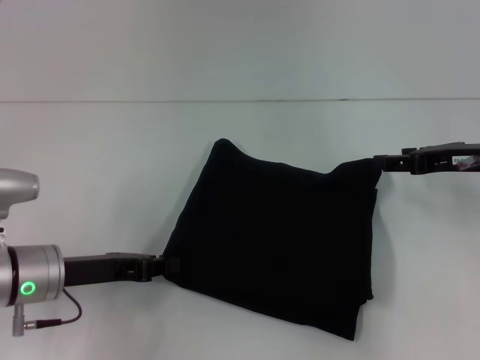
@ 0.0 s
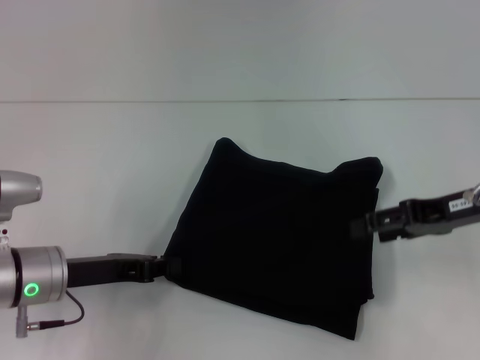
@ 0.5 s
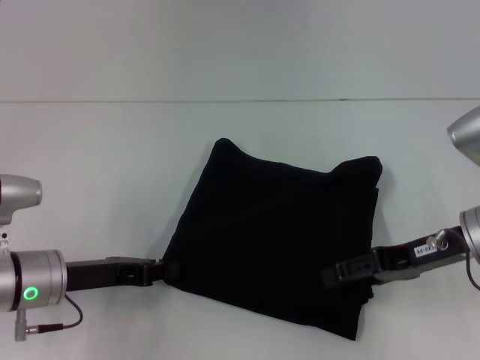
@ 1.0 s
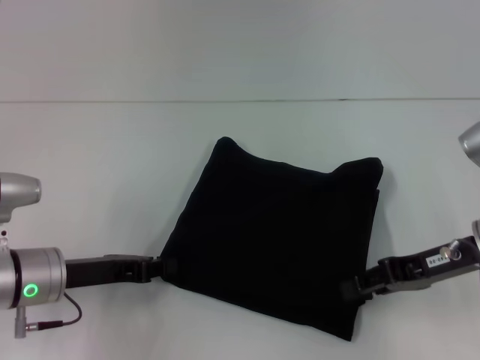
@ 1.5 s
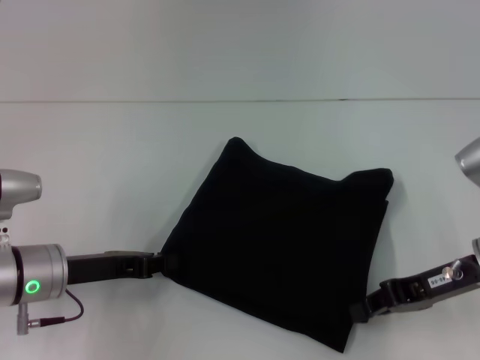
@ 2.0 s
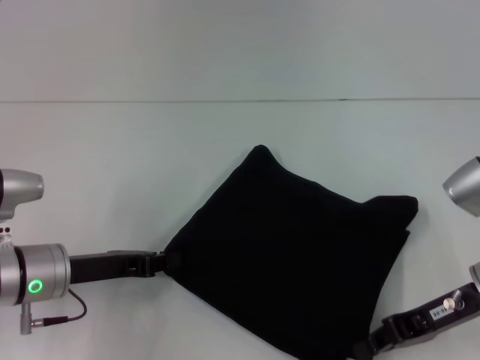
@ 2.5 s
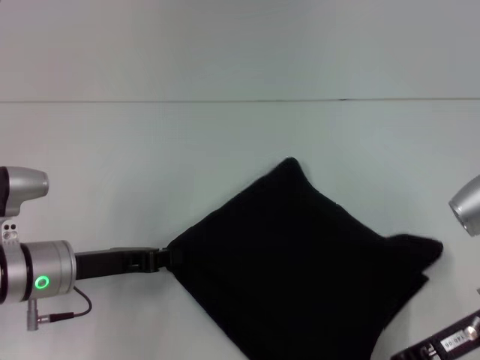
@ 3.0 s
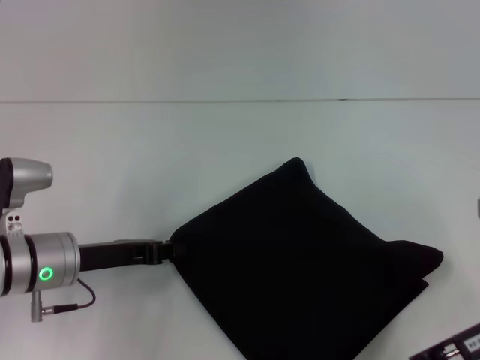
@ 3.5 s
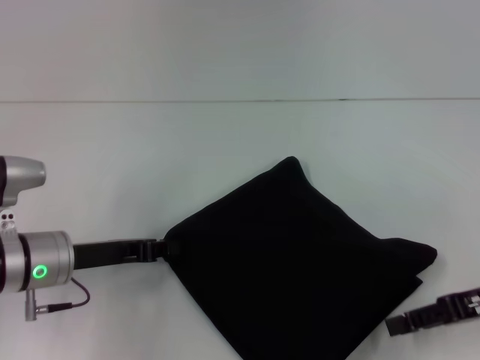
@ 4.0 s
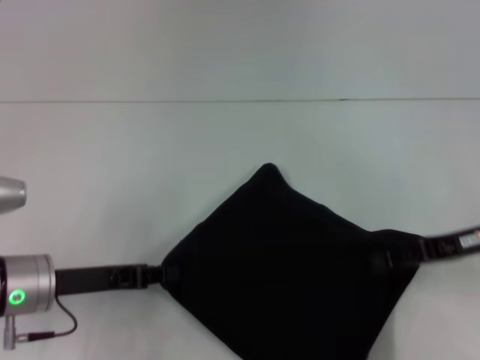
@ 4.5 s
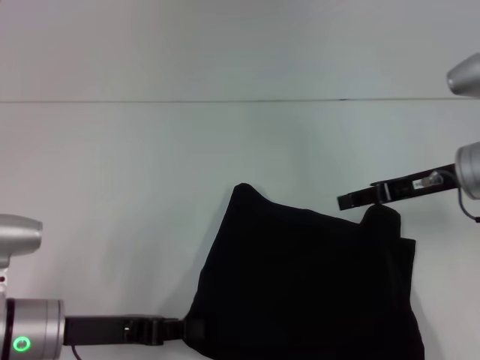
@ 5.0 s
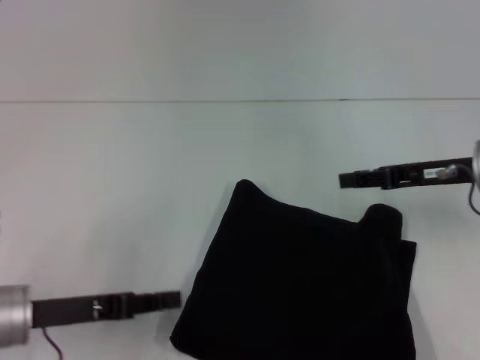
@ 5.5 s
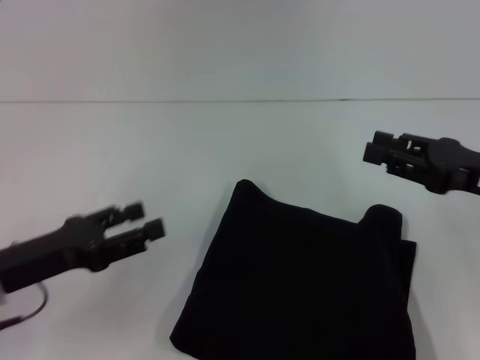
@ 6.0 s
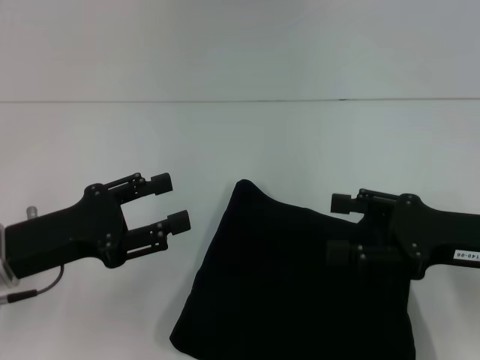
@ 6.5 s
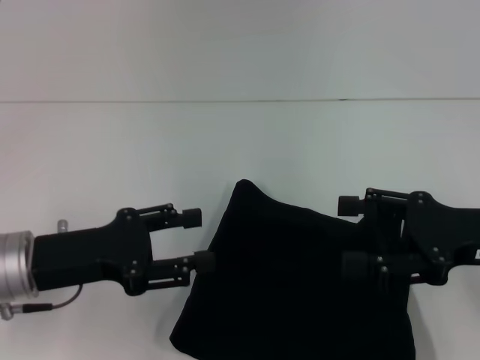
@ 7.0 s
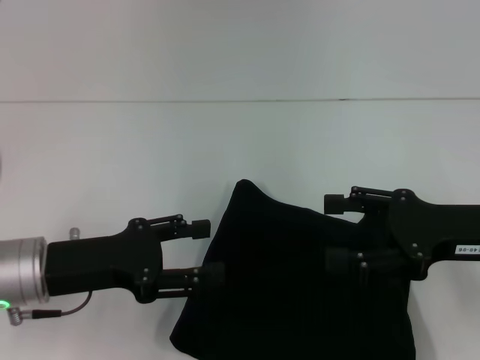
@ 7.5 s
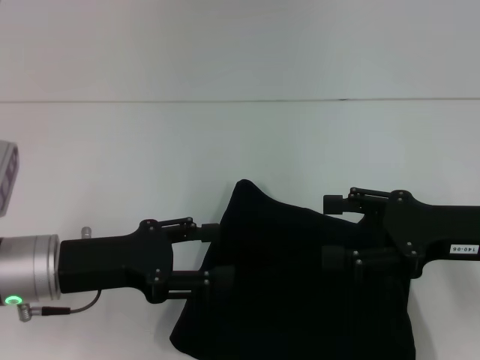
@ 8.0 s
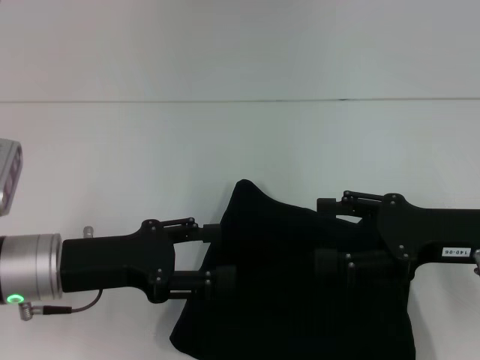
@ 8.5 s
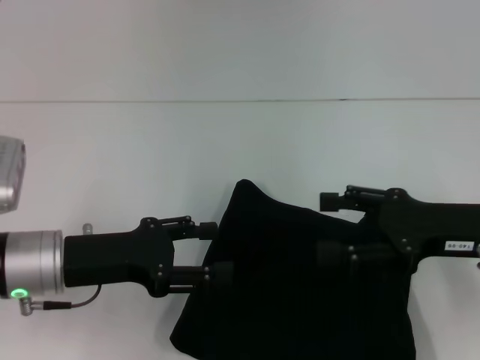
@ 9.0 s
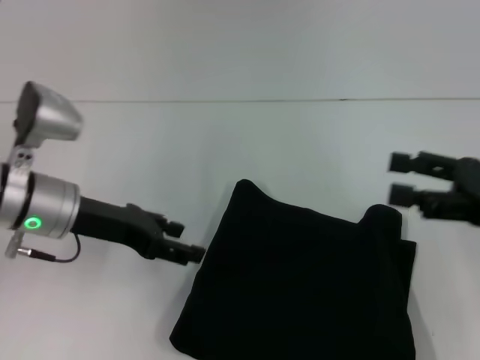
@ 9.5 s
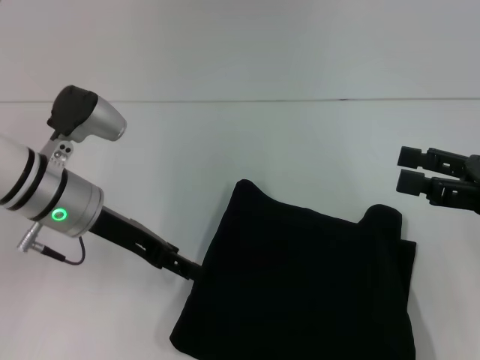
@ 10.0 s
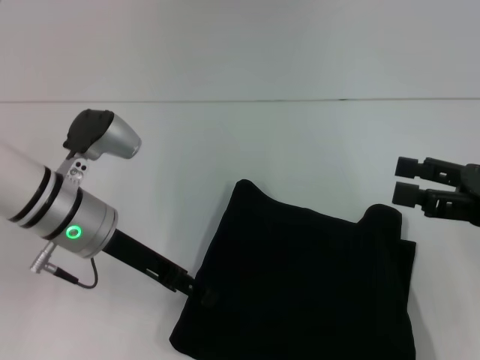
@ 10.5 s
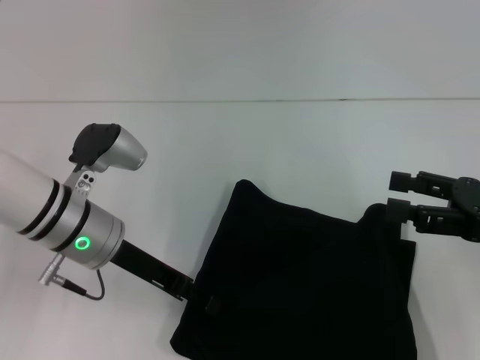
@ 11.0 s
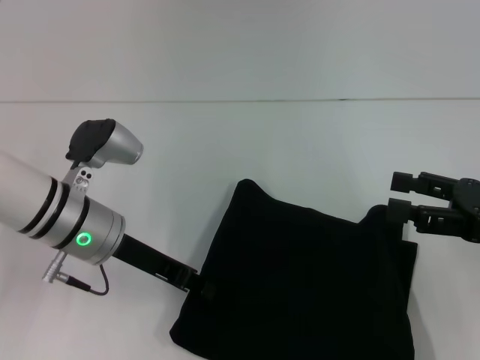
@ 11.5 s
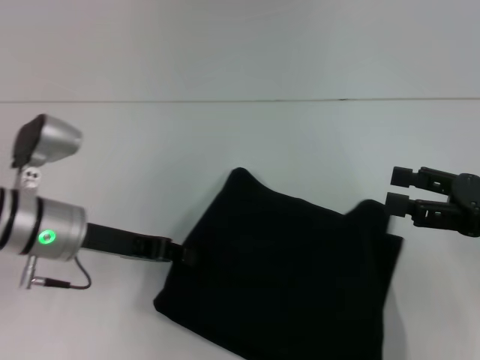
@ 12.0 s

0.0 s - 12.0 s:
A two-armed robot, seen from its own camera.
0.0 s - 2.0 s: The right gripper heads backward, covering some 5 cm, and closes its fingers.
2.0 s - 4.0 s: The right gripper travels to the right by about 5 cm, and opens its fingers.
4.0 s - 6.0 s: The right gripper moves roughly 10 cm forward and comes back, while the left gripper heads backward, covering about 5 cm, and opens.
6.0 s - 8.0 s: The right gripper opens. Meanwhile the left gripper moves to the right, roughly 5 cm.
8.0 s - 10.0 s: The left gripper is displaced forward by some 10 cm. Meanwhile the right gripper goes about 5 cm to the right.
10.0 s - 12.0 s: The left gripper closes up.

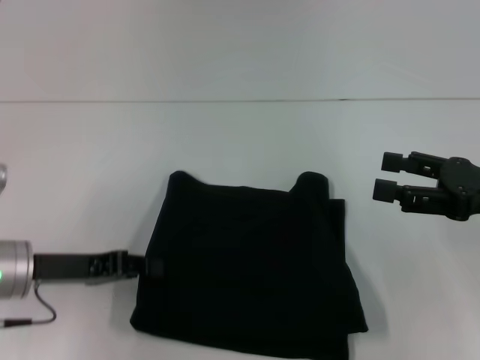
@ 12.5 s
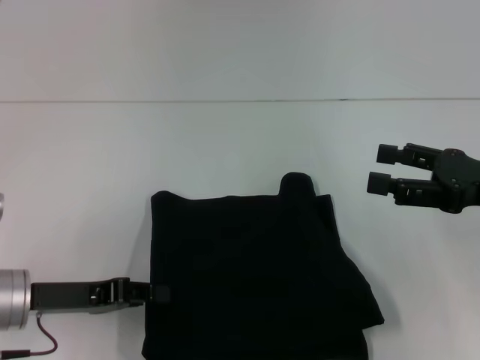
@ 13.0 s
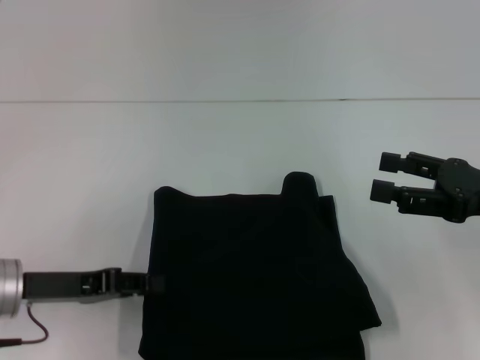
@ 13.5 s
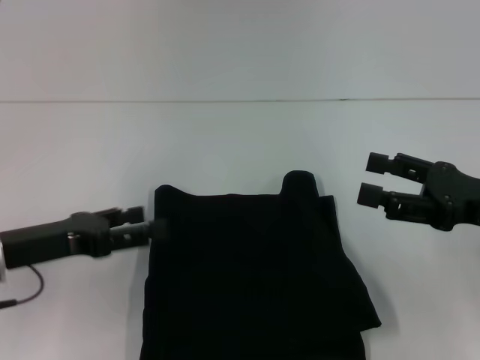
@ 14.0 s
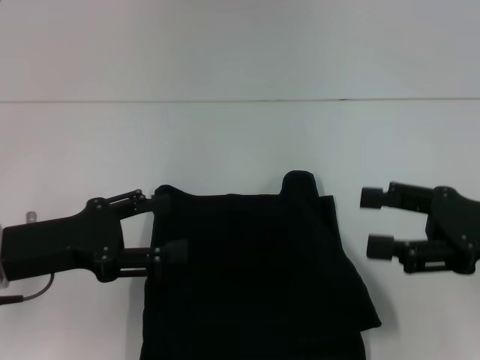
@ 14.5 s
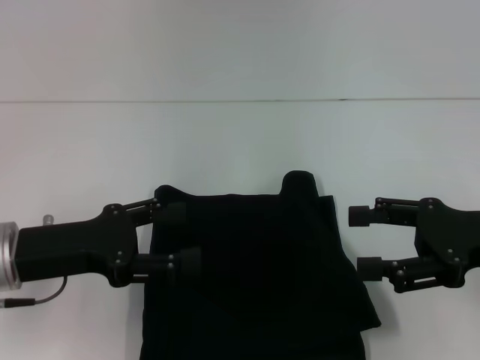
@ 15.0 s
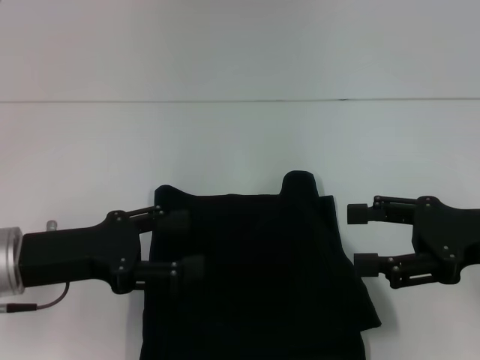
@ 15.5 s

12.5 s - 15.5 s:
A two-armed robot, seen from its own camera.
12.5 s - 14.0 s: The left gripper opens its fingers.

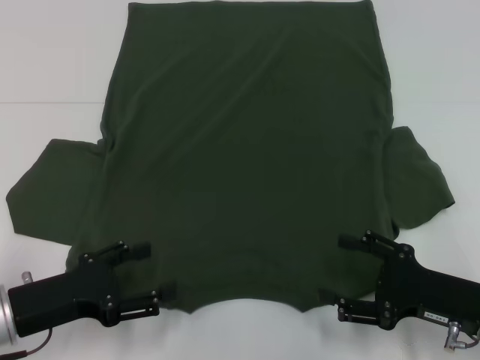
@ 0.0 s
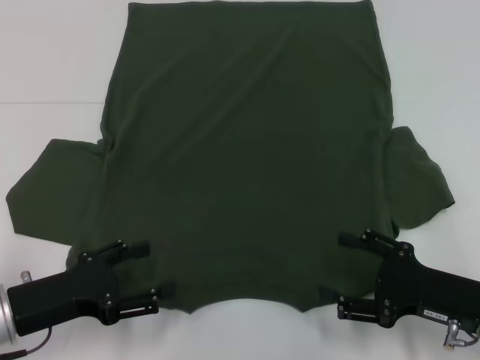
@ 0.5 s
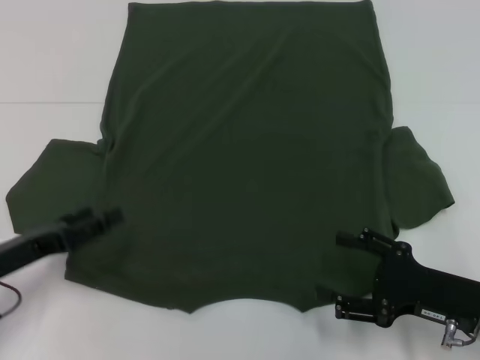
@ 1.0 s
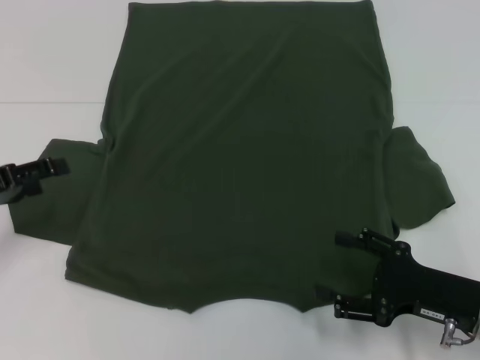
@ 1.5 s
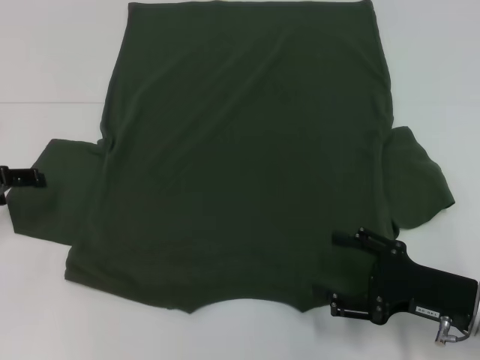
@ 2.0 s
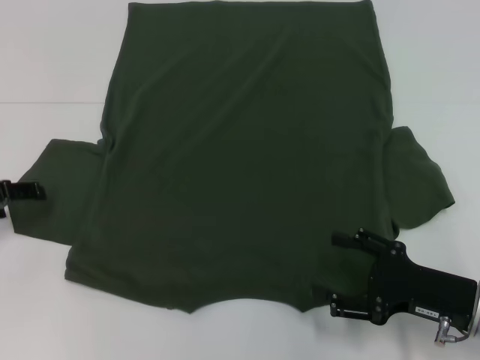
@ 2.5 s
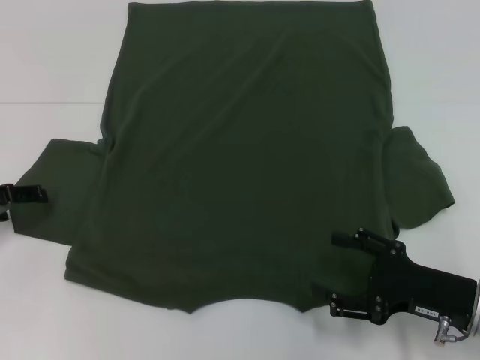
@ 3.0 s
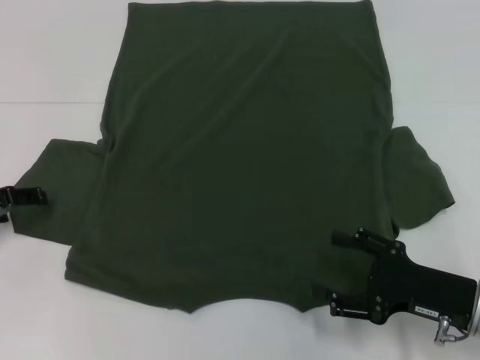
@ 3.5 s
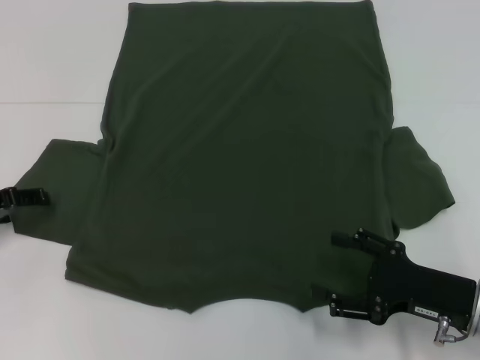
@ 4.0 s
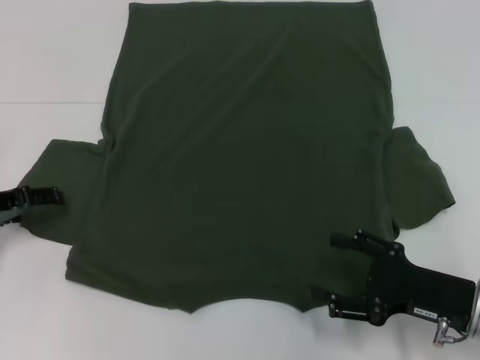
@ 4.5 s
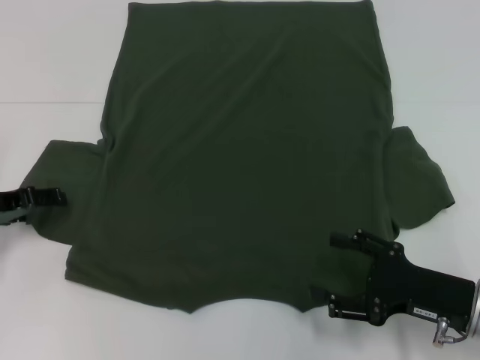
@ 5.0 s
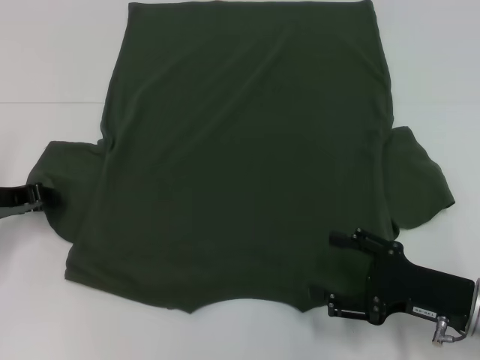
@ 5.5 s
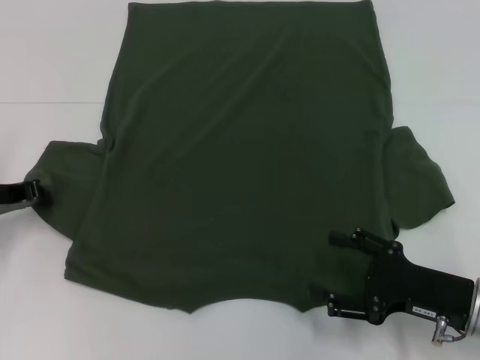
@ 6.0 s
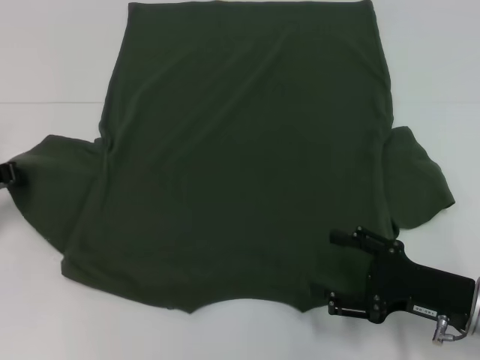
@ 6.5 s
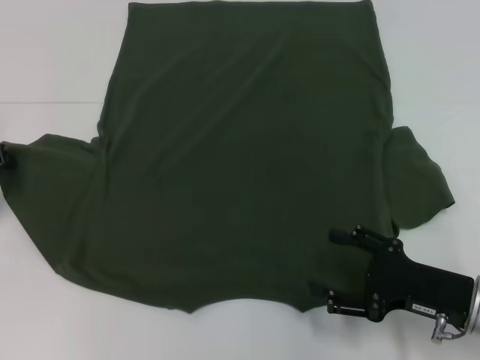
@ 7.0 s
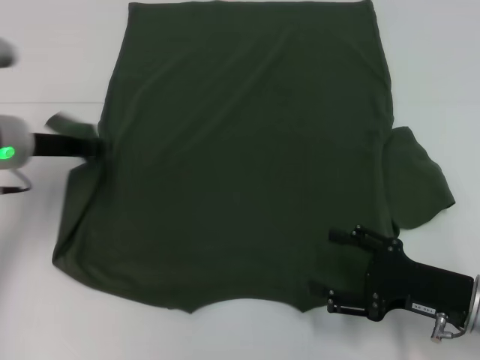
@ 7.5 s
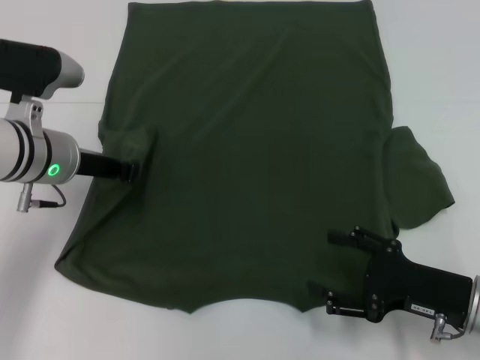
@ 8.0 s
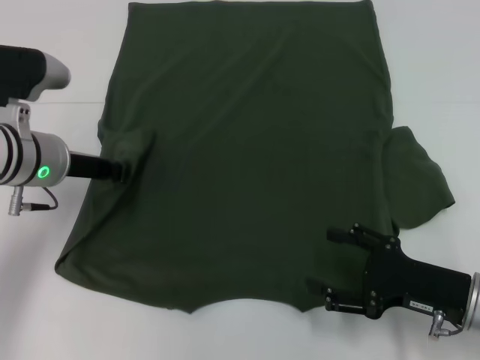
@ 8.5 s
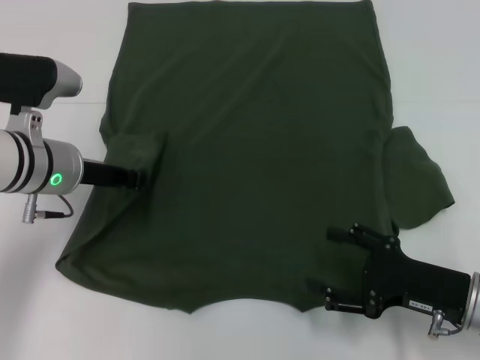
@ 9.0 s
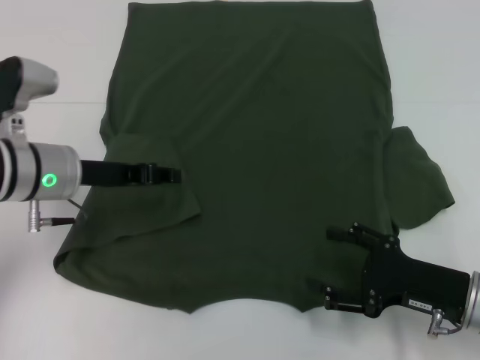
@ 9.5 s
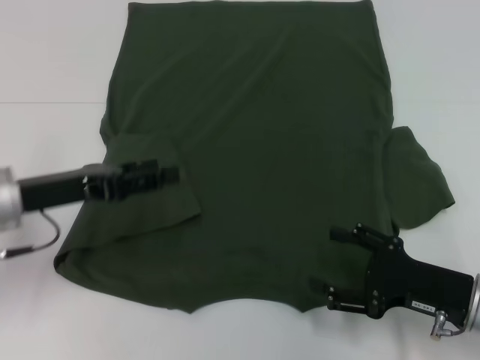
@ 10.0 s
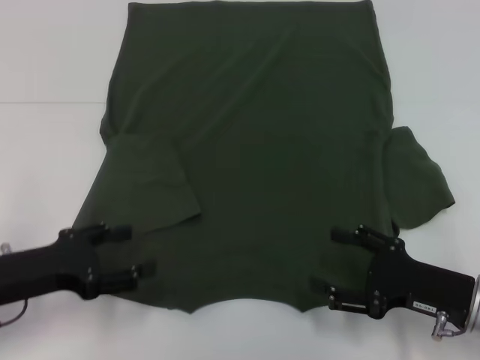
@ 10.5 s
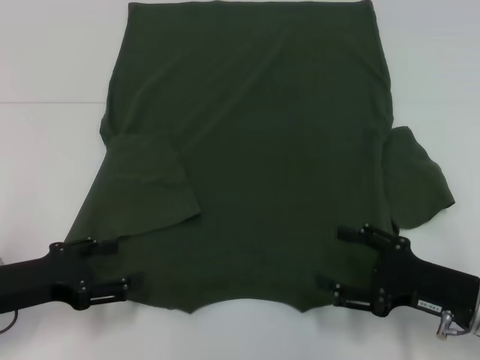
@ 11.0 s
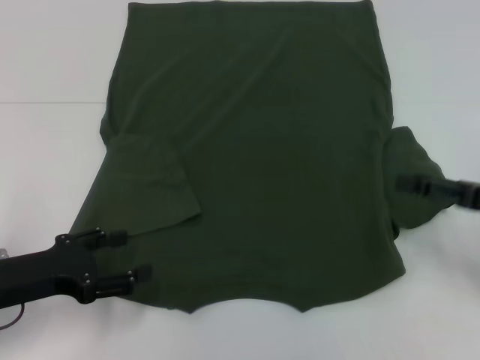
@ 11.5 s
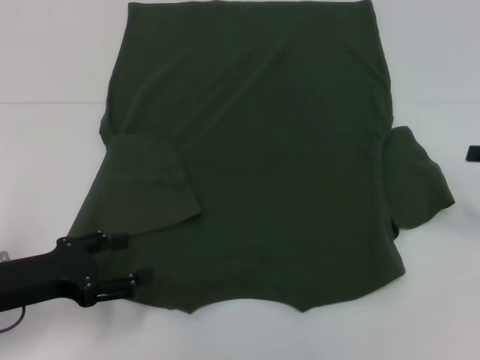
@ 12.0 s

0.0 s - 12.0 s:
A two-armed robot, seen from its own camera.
Step, 0.0 s - 9.5 s: Fold the bottom left sleeve with your left hand.
0.0 s - 2.0 s: The left gripper shifts roughly 15 cm forward, to the left and upward.
2.0 s - 4.0 s: The grippers make only small movements.
4.0 s - 6.0 s: The left gripper closes its fingers.
6.0 s - 8.0 s: The left gripper goes some 10 cm to the right.
8.0 s - 10.0 s: The left gripper shifts roughly 5 cm backward, and opens.
10.0 s - 12.0 s: The right gripper moves to the right, upward and forward, approximately 20 cm. Meanwhile the left gripper moves backward, roughly 5 cm.
